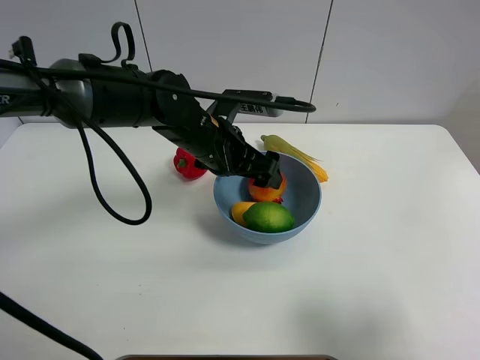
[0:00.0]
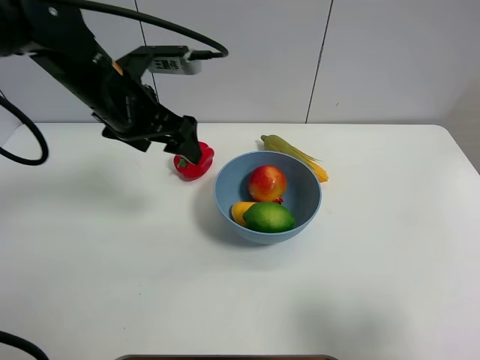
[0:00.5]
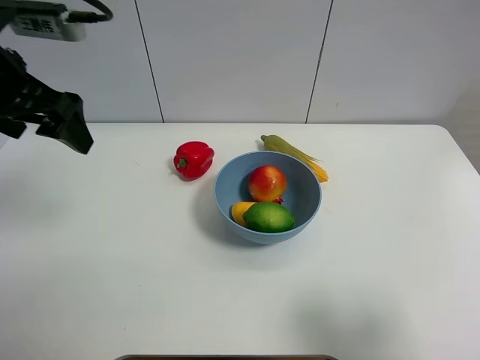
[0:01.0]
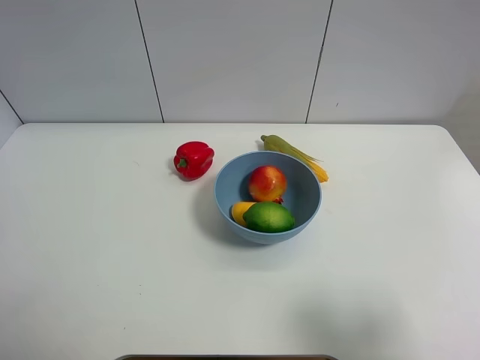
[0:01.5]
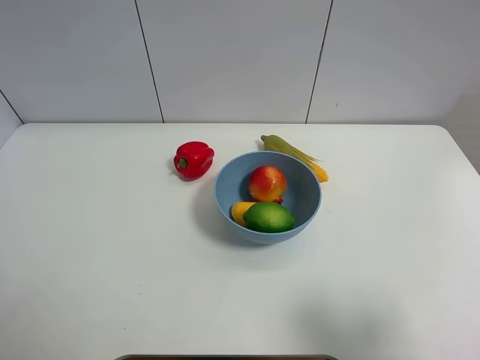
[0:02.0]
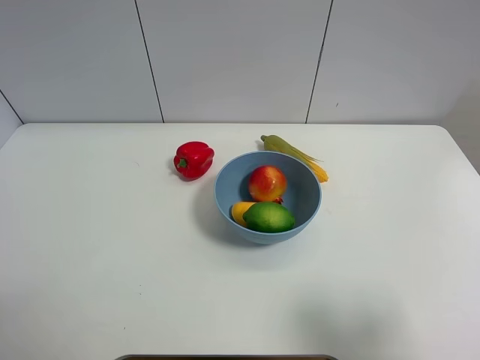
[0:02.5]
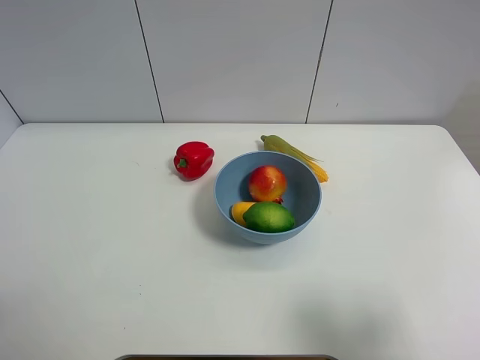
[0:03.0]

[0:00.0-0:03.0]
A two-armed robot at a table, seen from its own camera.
Task of the whole recording: Put the three fruits on the table into a bowl.
0:00.0 to 0:01.5: The left gripper moves to the left, backward and upward, approximately 40 cm.
